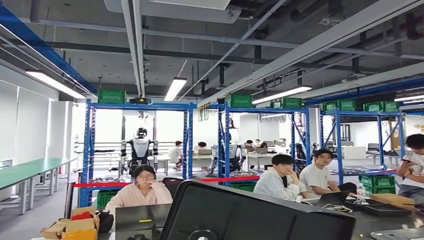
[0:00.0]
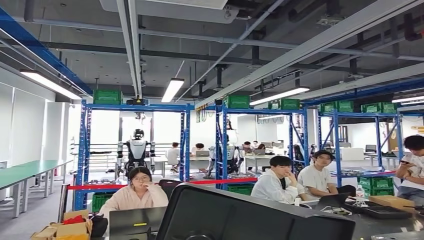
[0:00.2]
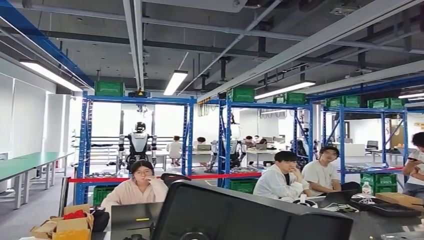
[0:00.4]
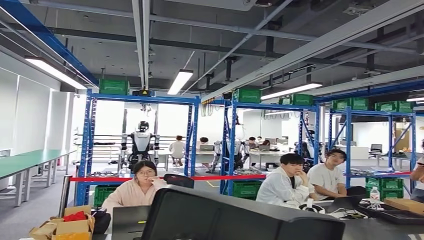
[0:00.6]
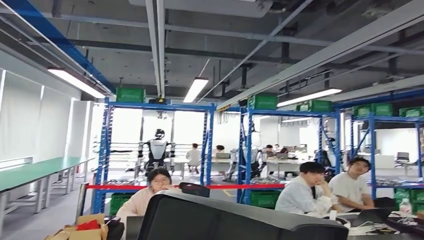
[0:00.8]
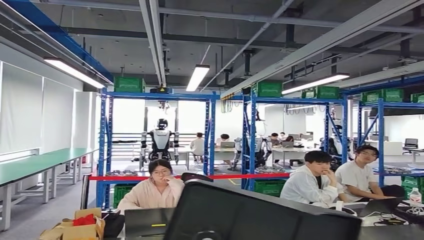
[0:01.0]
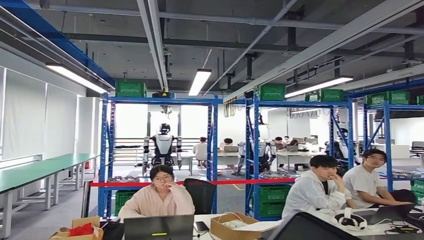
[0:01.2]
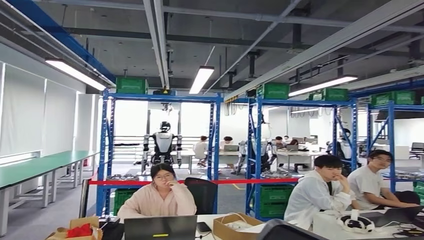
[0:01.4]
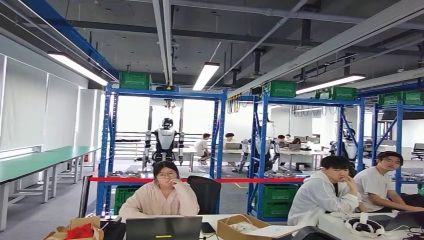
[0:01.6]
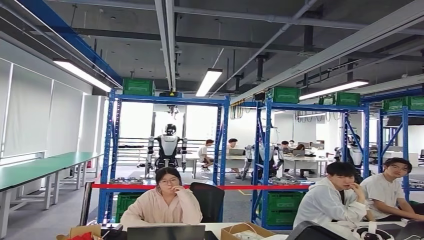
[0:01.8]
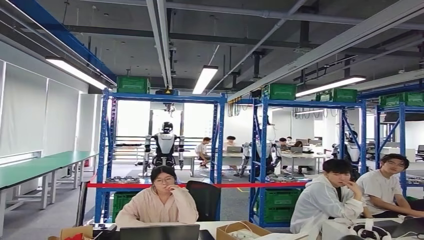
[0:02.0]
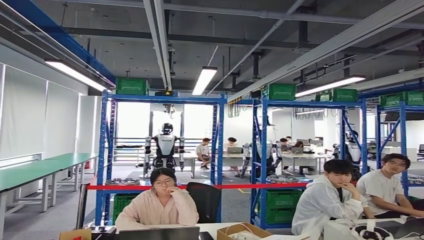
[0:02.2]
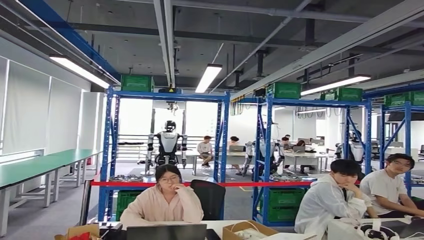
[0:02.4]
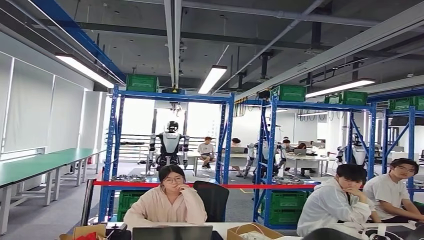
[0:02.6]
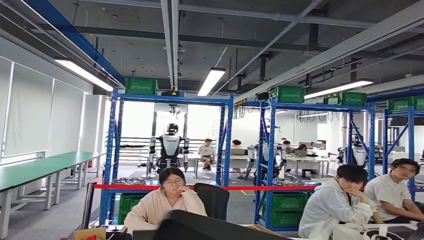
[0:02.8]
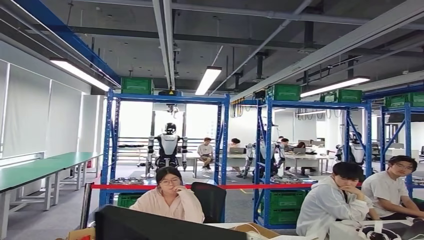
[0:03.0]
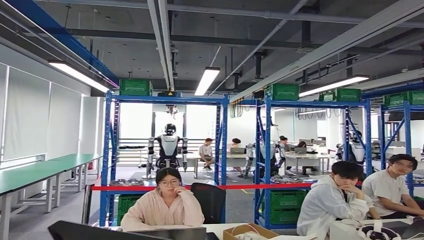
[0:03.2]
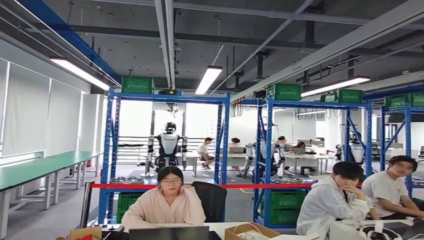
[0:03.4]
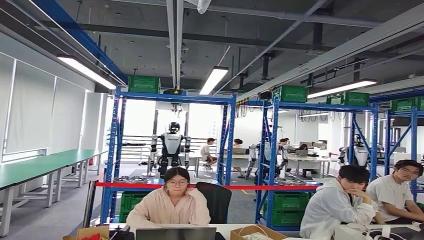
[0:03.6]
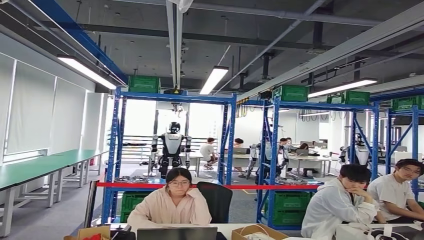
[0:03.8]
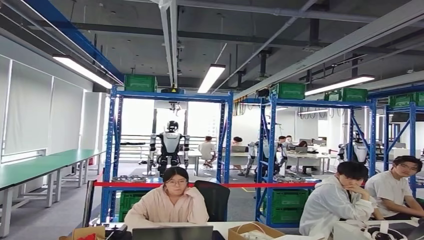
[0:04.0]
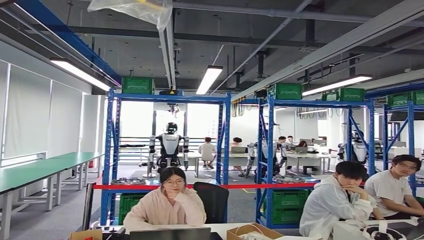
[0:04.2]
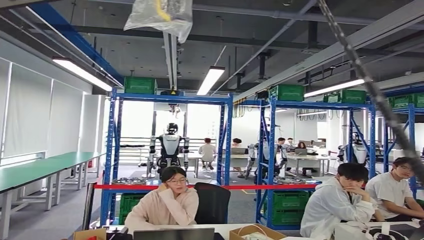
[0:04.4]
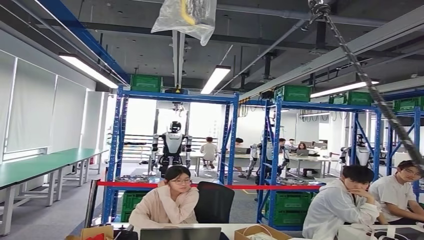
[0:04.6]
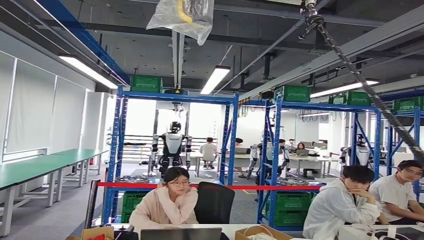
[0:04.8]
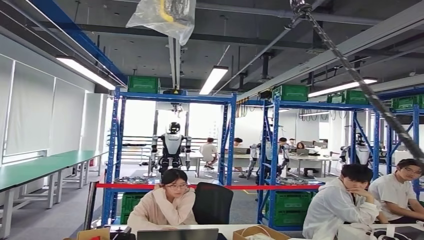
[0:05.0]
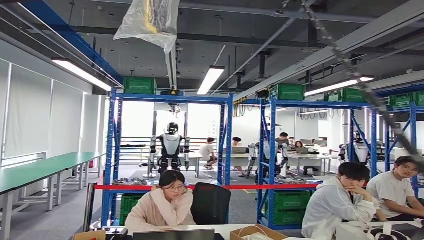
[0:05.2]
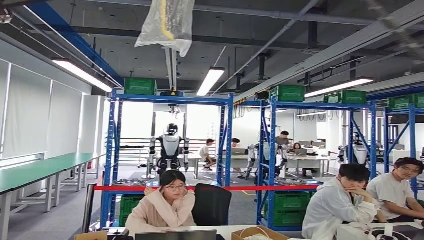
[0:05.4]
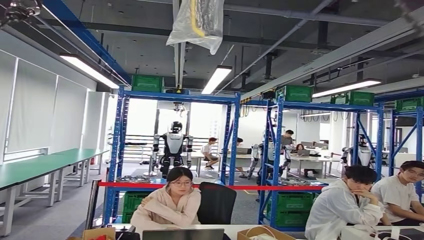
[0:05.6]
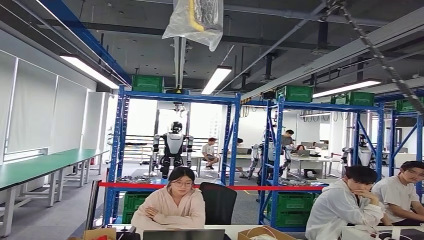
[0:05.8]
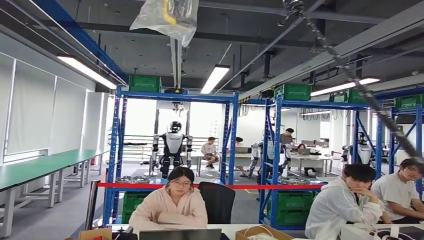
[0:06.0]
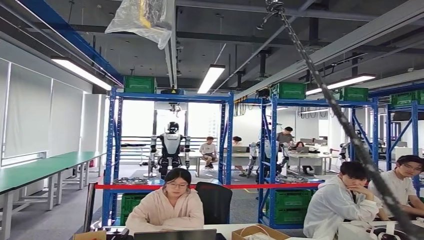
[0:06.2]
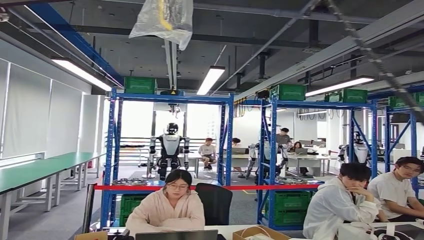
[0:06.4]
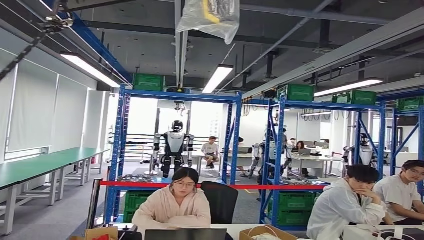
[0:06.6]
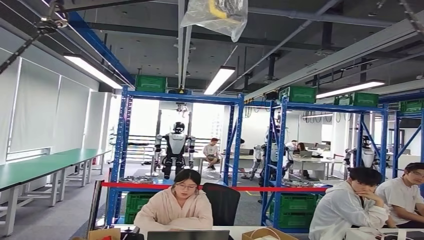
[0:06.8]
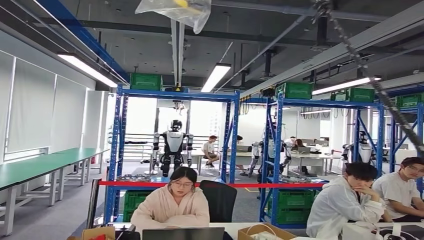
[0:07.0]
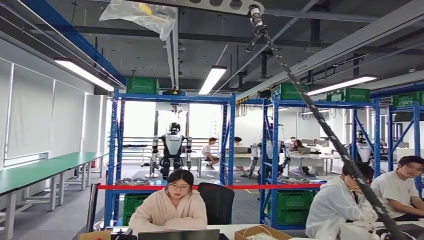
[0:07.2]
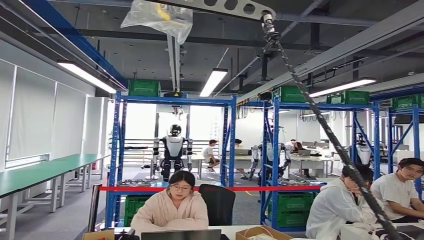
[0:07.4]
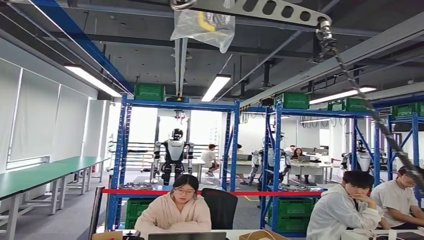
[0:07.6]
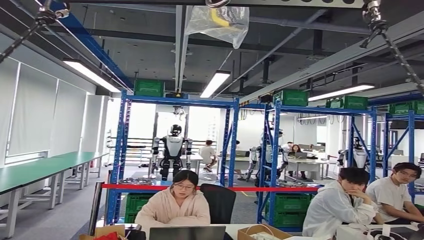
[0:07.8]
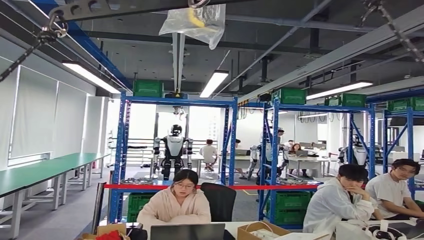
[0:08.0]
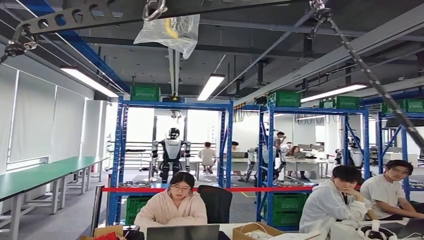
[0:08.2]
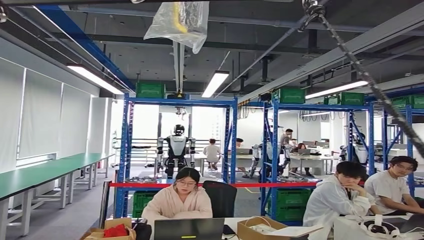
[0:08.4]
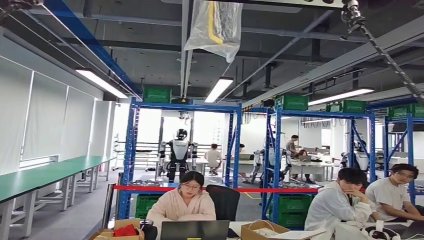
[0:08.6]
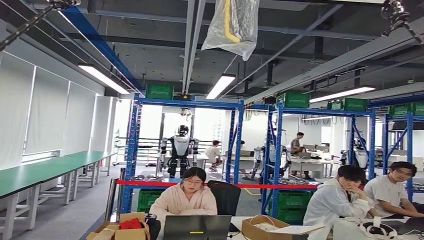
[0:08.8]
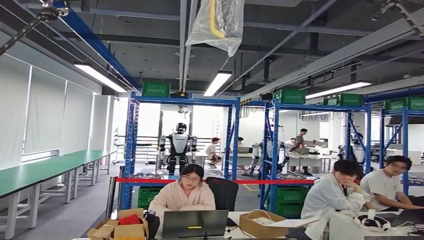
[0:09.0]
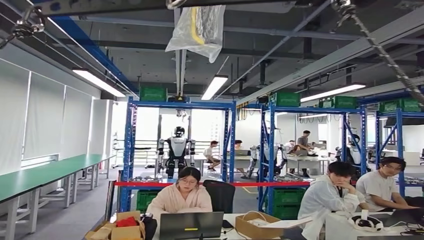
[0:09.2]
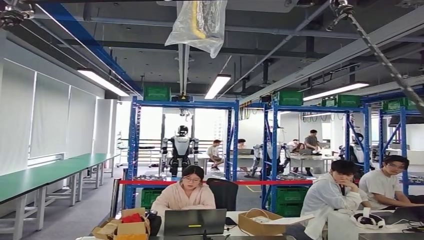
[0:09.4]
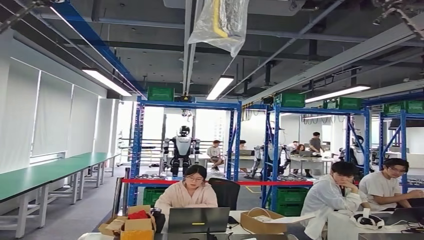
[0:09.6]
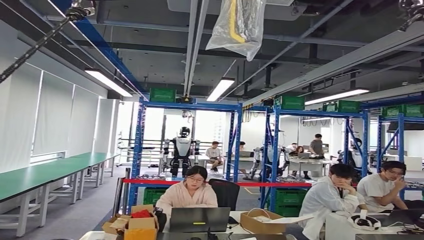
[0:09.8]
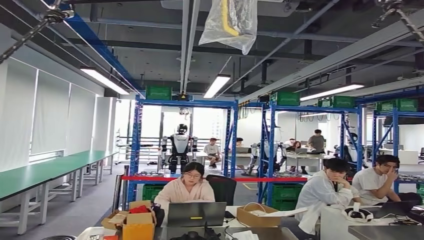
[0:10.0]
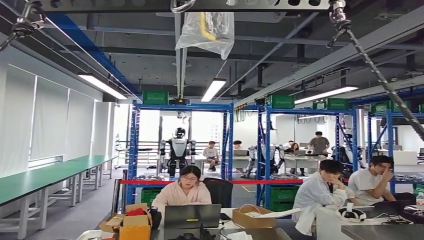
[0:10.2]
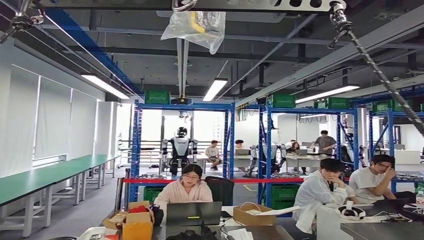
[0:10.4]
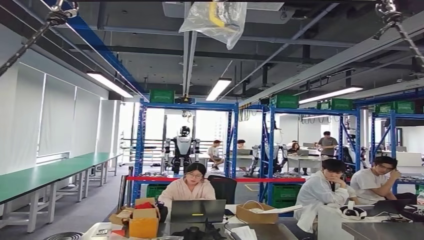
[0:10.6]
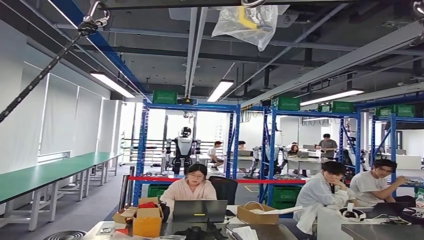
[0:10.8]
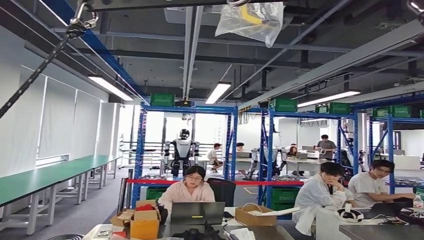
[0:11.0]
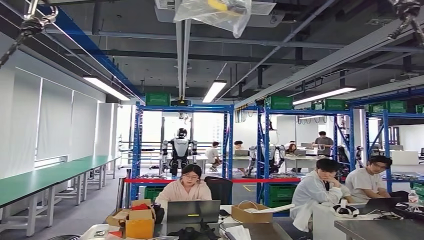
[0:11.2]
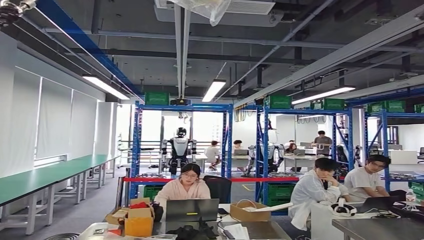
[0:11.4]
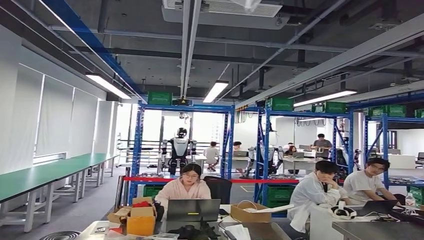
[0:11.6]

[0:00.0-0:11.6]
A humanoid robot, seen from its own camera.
Step, 0:00.0 to 0:08.2: Insert the small component into the corresponding slot on the workbench.
Step, 0:08.4 to 0:11.6: Move to the initial position of the workbench.
